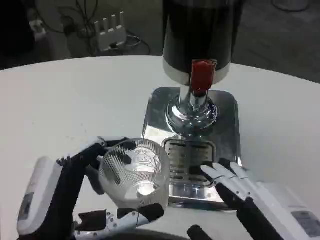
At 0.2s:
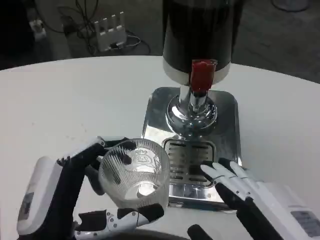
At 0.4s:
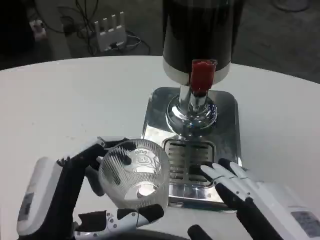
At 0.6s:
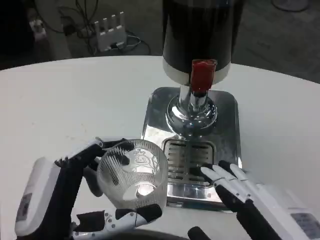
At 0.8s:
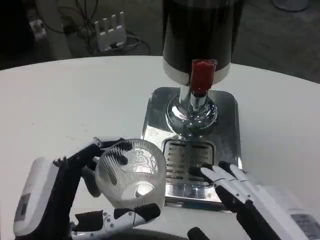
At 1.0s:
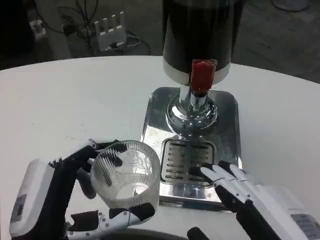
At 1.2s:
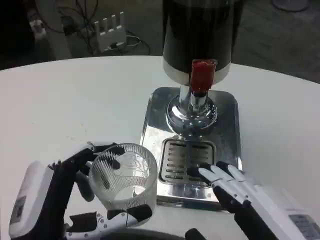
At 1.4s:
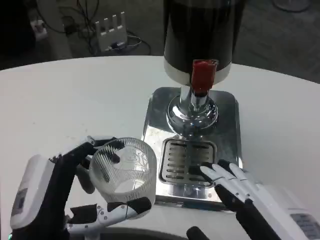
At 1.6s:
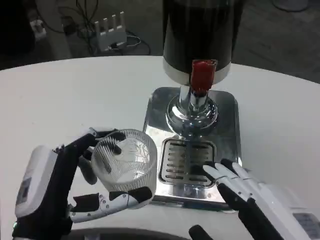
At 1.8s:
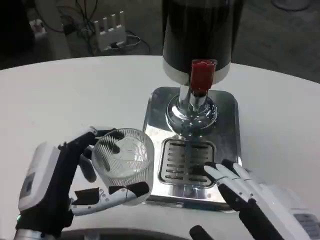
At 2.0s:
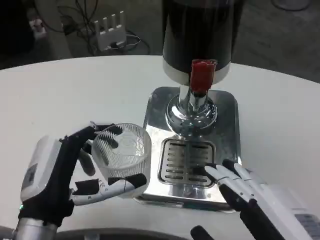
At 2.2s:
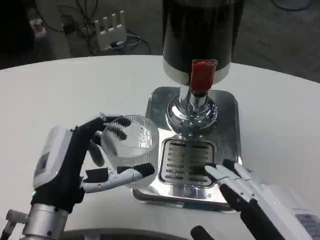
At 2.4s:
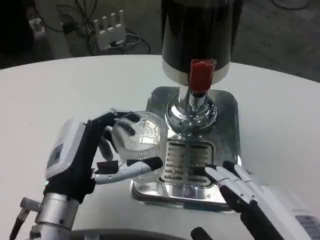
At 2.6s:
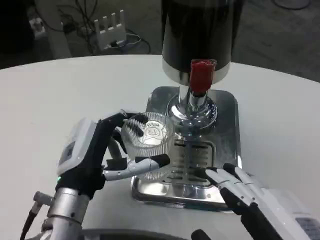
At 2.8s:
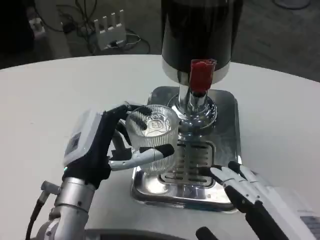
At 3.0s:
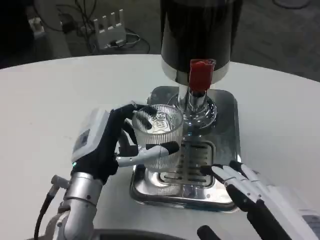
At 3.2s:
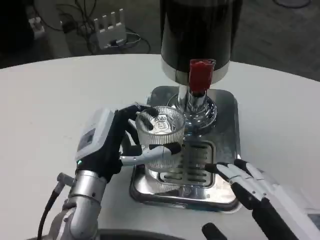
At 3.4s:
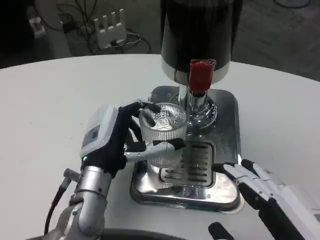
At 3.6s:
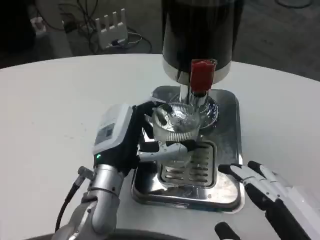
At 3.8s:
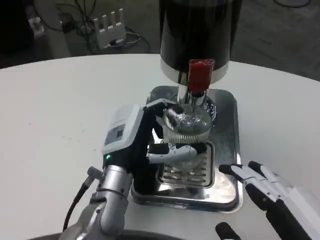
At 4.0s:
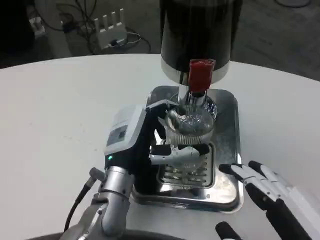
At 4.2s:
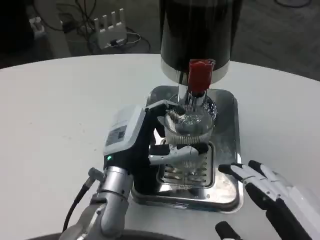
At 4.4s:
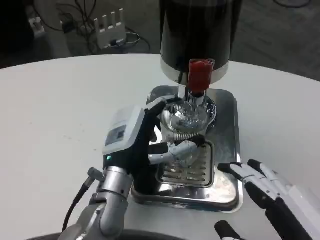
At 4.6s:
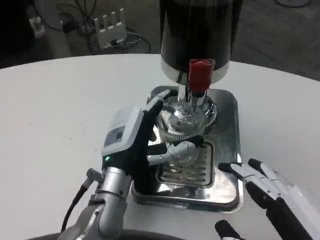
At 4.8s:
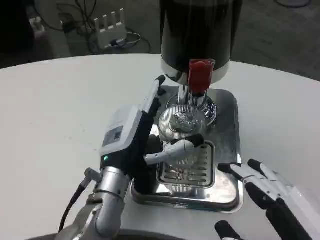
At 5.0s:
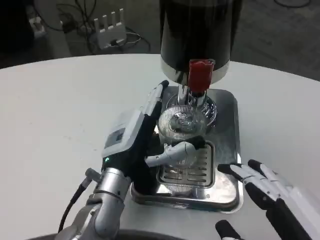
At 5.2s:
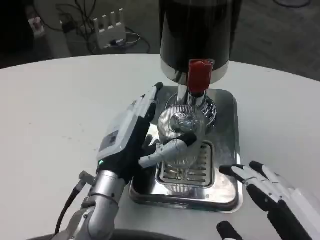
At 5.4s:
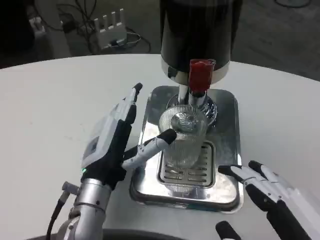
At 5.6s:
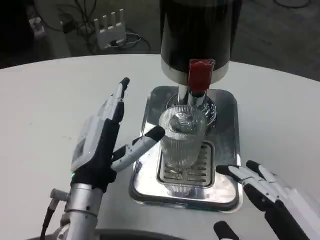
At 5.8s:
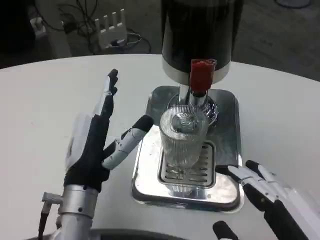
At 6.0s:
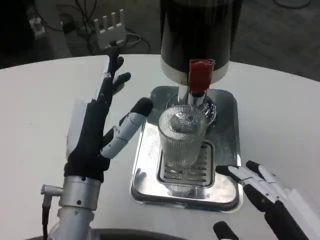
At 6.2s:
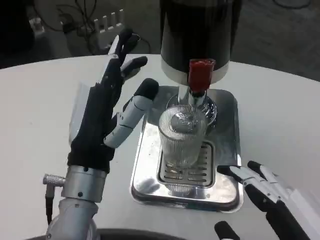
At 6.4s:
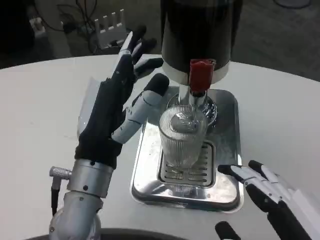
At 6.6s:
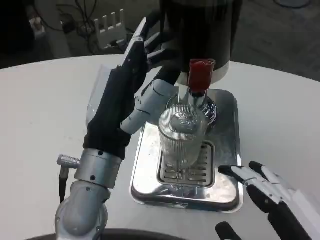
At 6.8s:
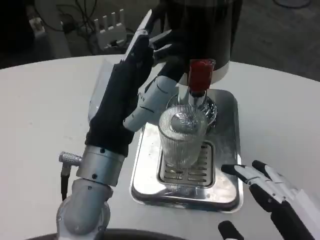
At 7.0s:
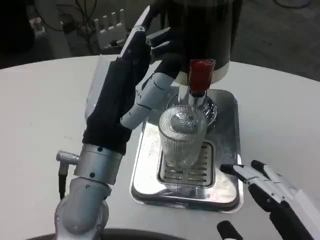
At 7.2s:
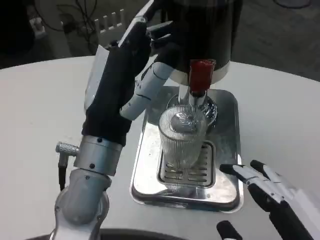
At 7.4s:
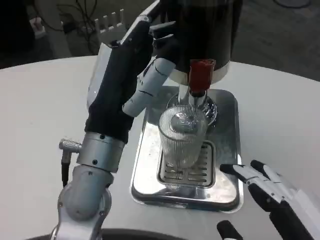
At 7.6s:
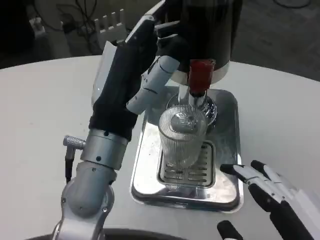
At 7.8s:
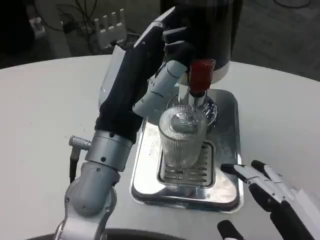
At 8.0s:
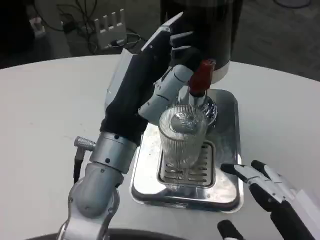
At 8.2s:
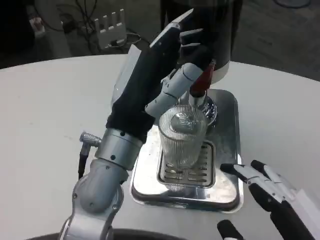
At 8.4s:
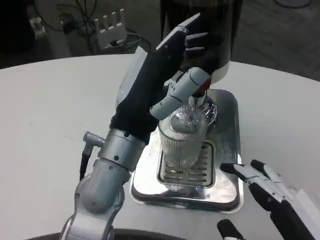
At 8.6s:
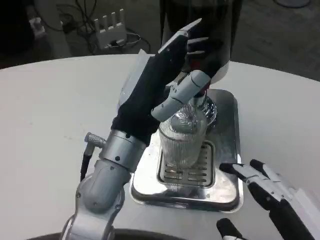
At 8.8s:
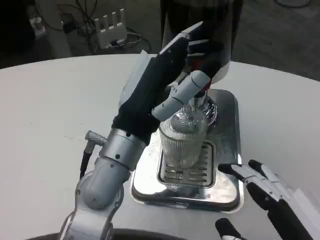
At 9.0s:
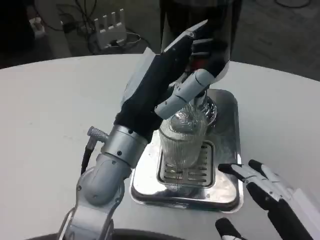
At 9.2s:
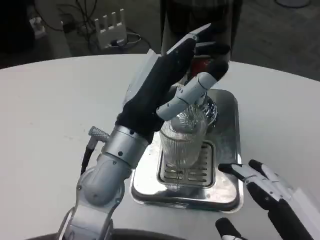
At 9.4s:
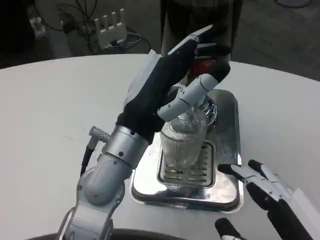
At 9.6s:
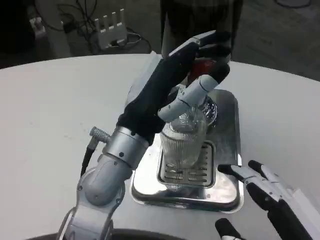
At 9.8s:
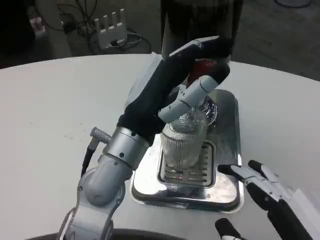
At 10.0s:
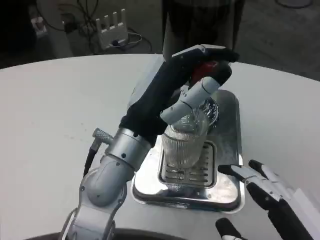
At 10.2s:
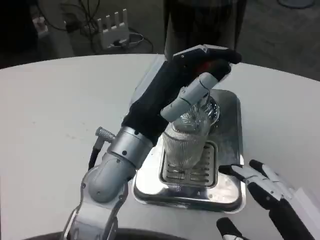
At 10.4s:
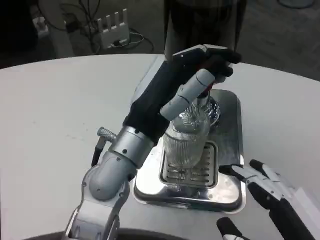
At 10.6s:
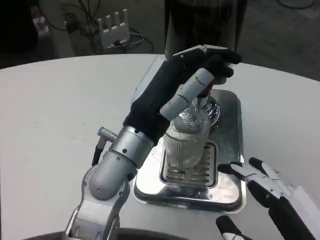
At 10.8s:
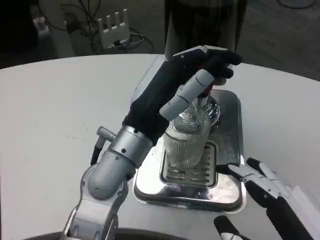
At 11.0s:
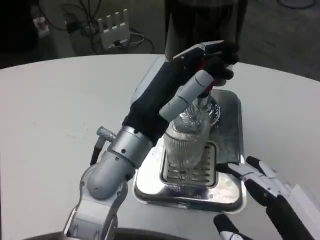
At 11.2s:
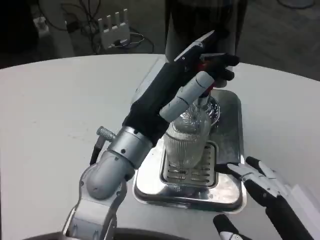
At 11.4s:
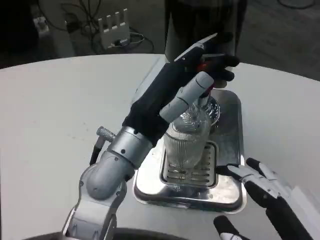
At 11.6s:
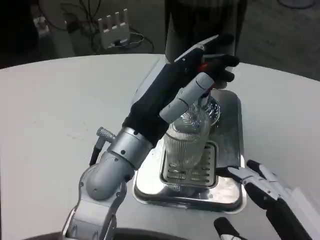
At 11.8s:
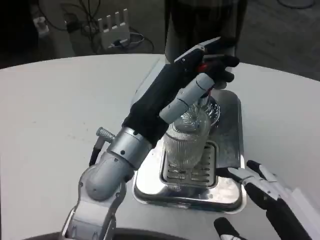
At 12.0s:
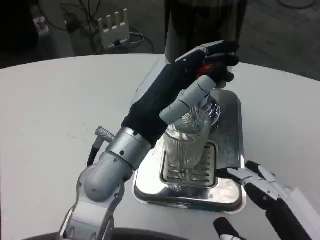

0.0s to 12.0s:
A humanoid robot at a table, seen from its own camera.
Task of the whole recording: Grasp the cup under the faucet to collect the drink, then remove the cup.
0.0s to 1.6s: The hands move only a little.
1.6s to 3.0s: The left hand shifts some 10 cm forward.
4.4s to 6.0s: The left hand shifts by about 5 cm.
6.0s to 7.6s: The left hand is displaced upward by some 5 cm.
7.6s to 10.4s: The hands move only a little.
10.4s to 12.0s: Both hands stay put.

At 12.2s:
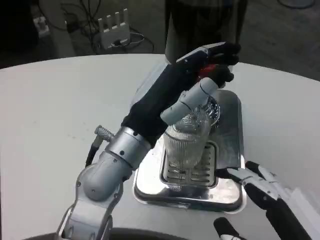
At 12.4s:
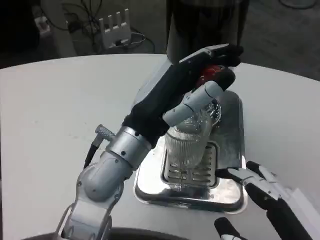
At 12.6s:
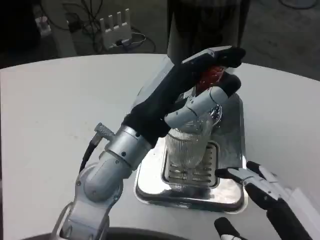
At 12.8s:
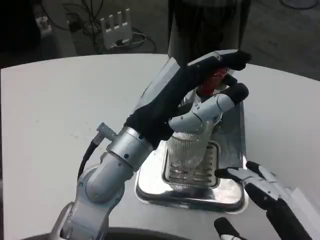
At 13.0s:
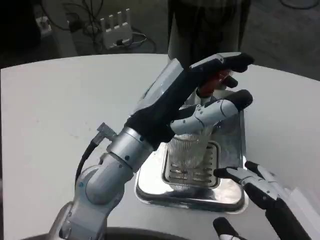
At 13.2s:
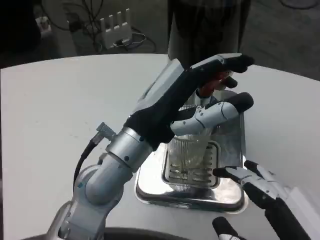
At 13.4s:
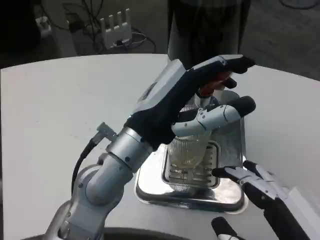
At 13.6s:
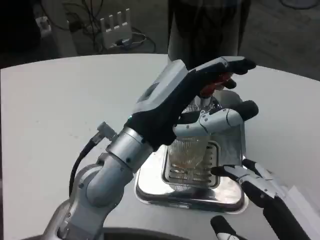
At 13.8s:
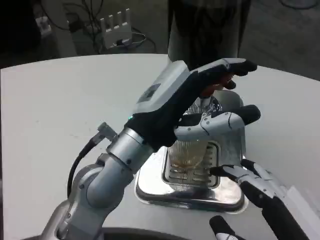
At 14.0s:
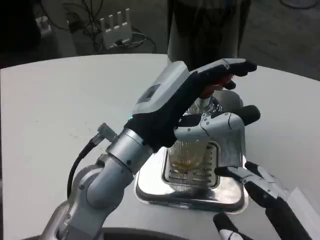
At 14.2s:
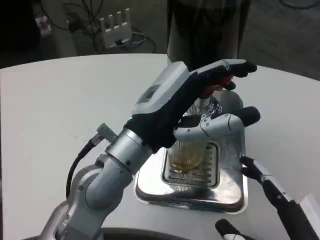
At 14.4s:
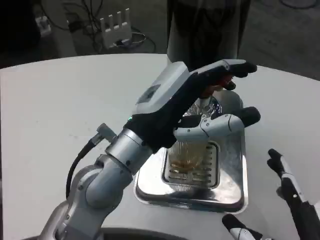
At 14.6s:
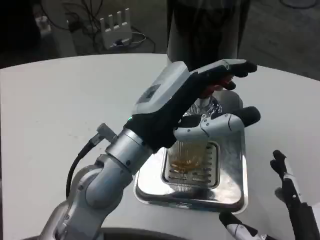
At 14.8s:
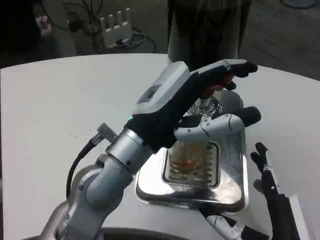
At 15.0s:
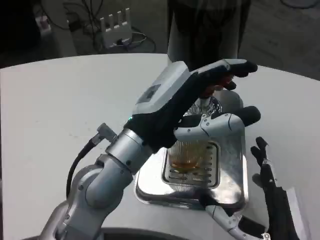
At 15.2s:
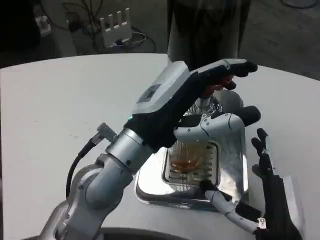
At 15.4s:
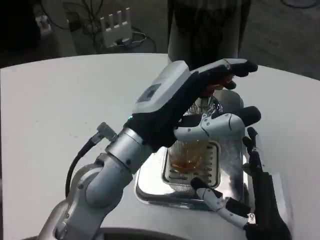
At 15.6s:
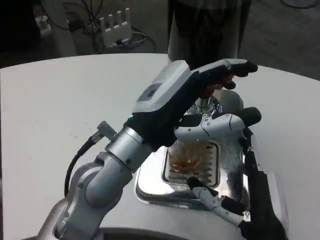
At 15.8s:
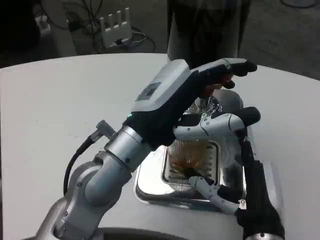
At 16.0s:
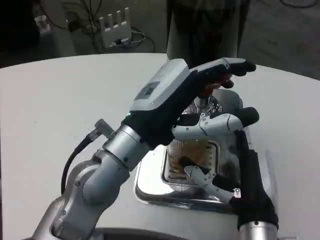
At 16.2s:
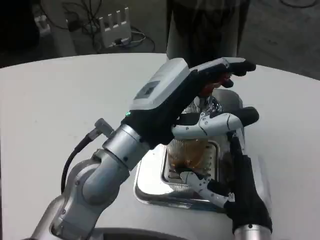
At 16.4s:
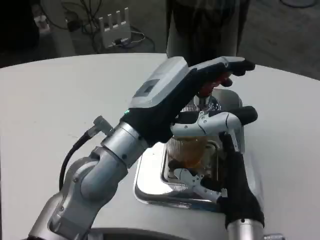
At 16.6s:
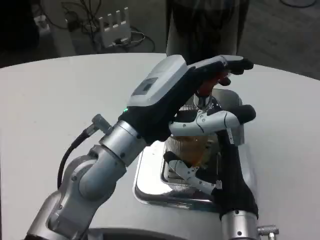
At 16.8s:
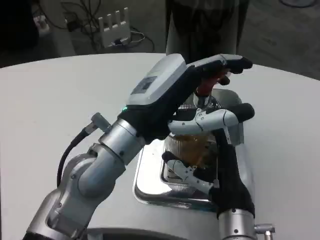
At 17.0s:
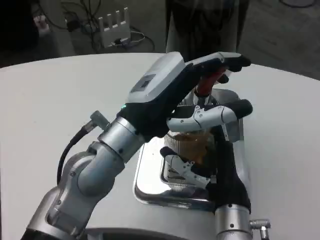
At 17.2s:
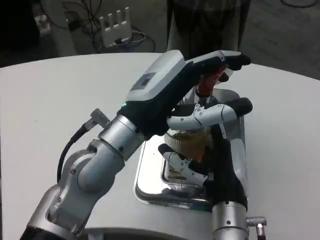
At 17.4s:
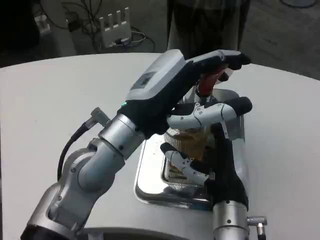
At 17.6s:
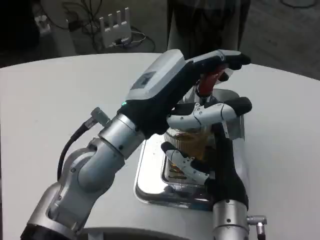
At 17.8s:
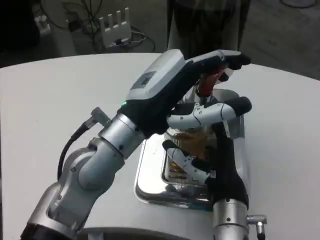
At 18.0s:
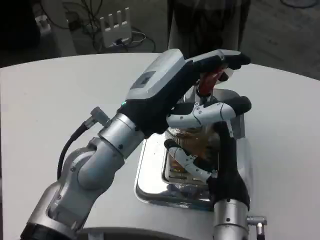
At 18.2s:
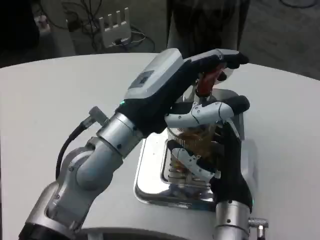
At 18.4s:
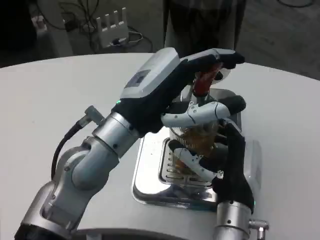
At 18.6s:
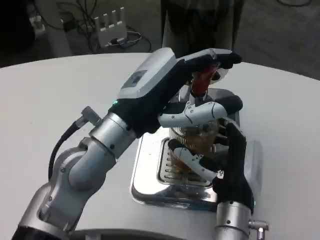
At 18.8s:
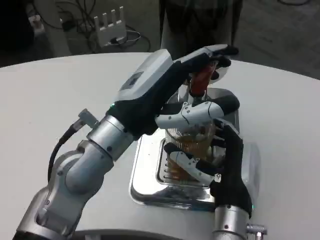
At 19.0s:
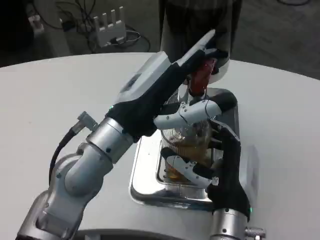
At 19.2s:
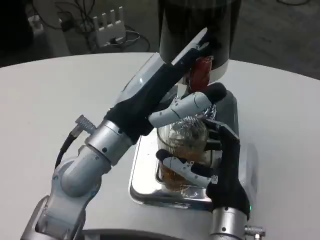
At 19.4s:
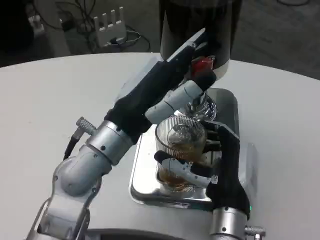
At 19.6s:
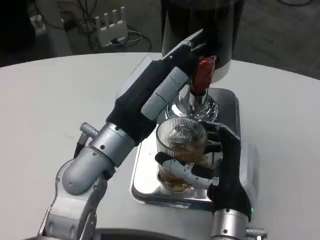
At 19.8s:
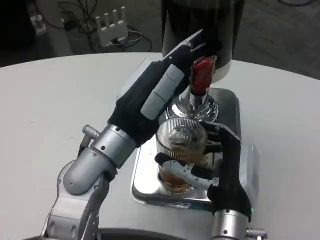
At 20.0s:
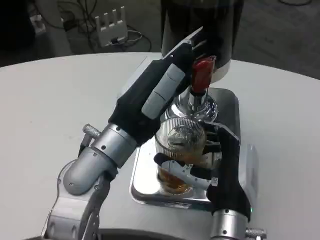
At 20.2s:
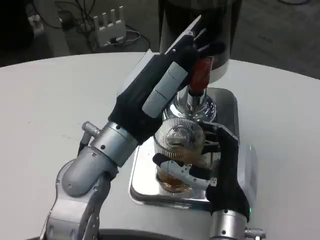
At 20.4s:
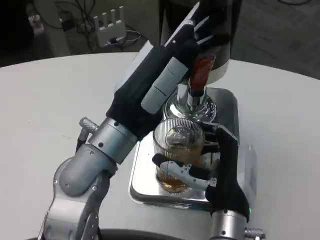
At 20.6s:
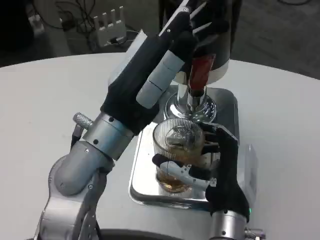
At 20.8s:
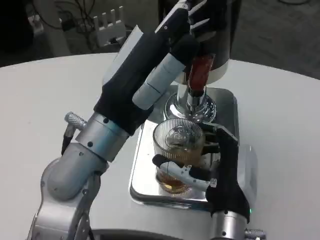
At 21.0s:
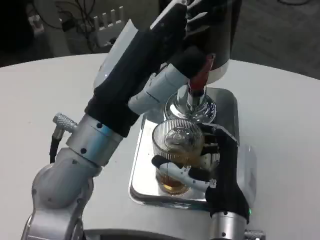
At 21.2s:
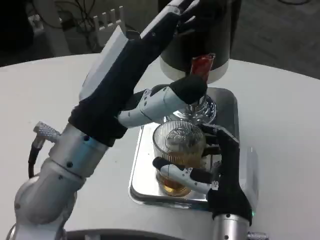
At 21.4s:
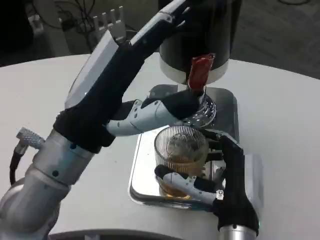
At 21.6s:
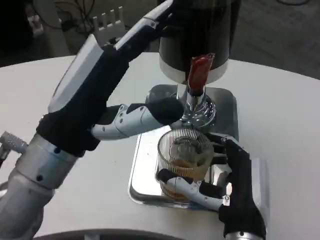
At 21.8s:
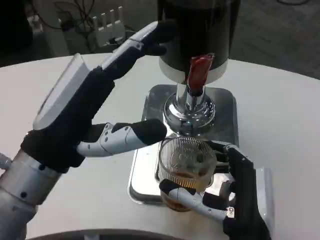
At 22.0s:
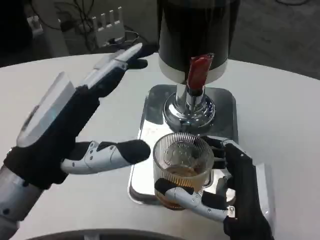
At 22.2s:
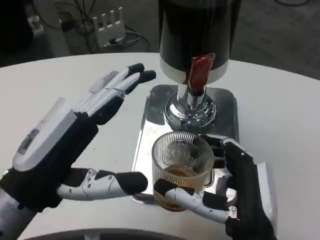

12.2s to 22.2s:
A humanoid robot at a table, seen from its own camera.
Task of the whole recording: Grasp the cup under the faucet to collect the drink, then remove the cup.
13.6s to 15.0s: The right hand goes about 10 cm forward, downward and to the left.
15.0s to 16.4s: The right hand heads forward, covering roughly 5 cm.
20.8s to 22.2s: The left hand heads to the left and backward, covering some 10 cm, while the right hand goes about 5 cm backward.
